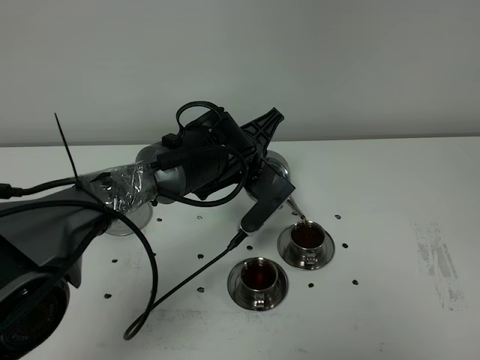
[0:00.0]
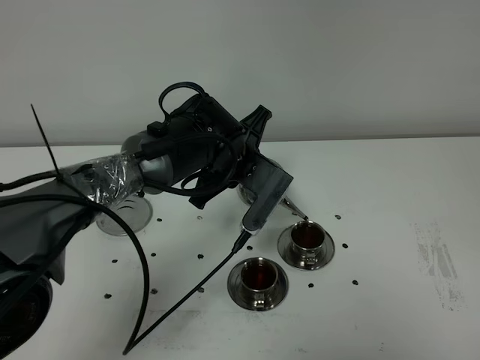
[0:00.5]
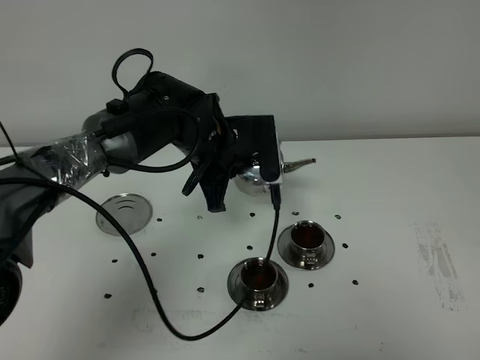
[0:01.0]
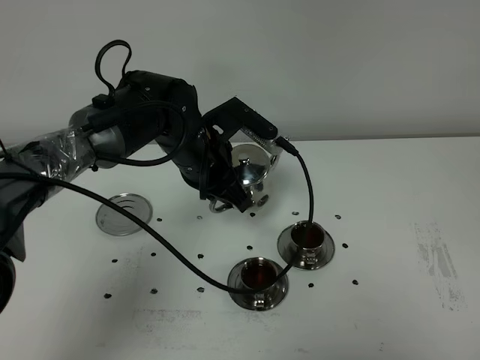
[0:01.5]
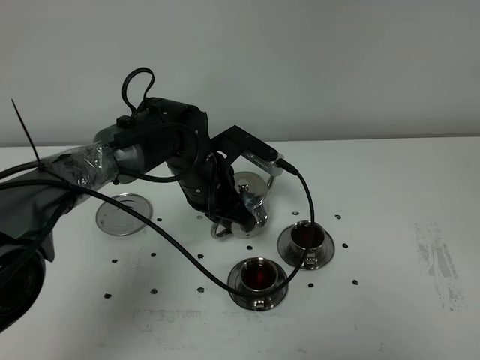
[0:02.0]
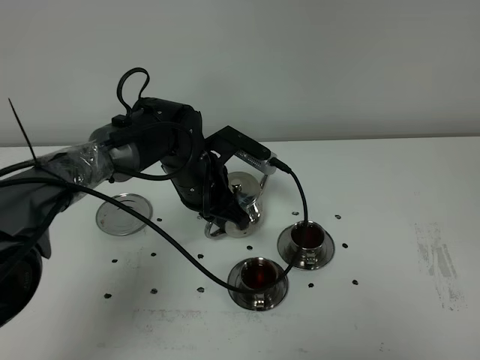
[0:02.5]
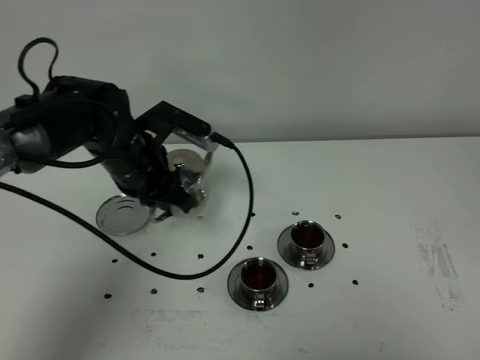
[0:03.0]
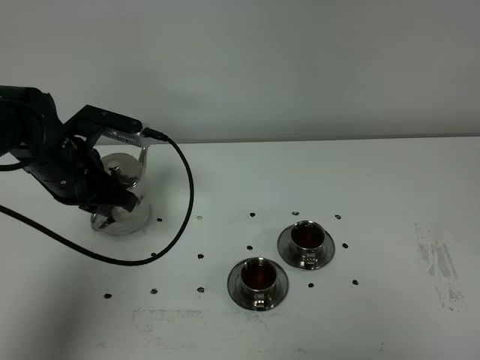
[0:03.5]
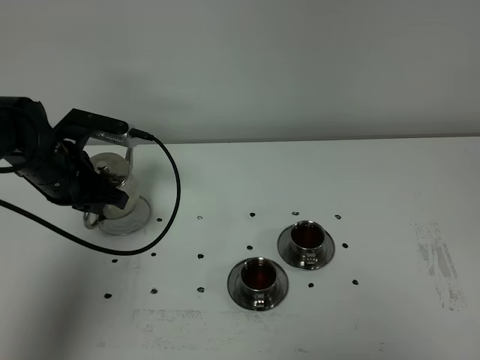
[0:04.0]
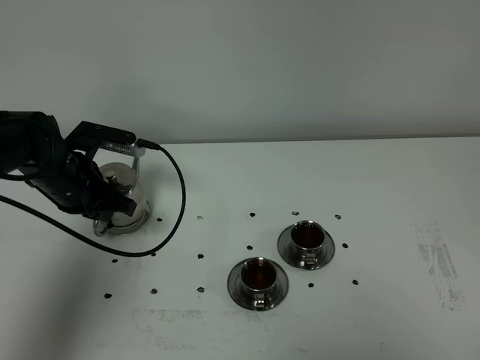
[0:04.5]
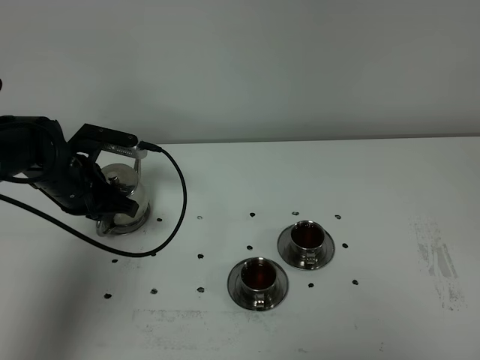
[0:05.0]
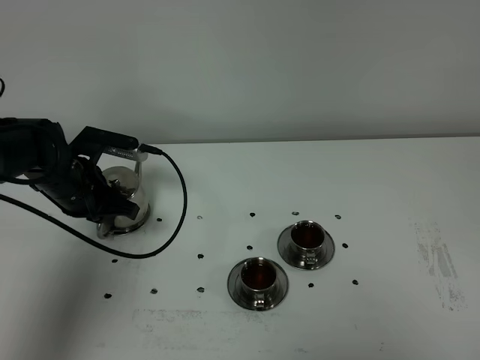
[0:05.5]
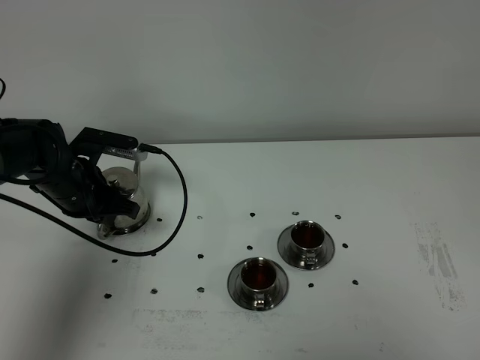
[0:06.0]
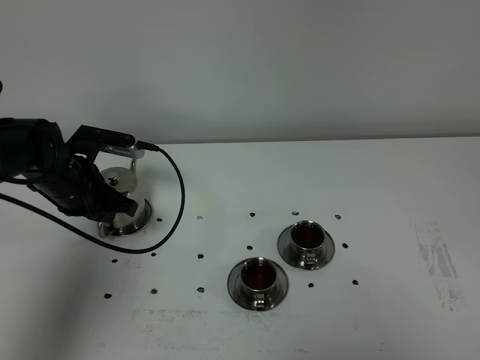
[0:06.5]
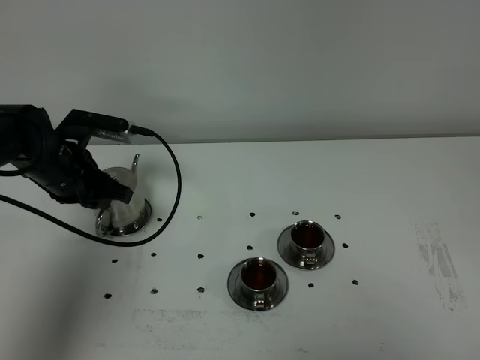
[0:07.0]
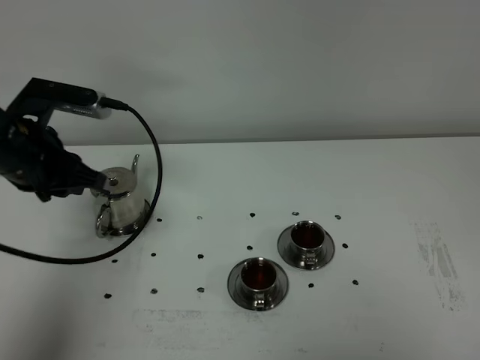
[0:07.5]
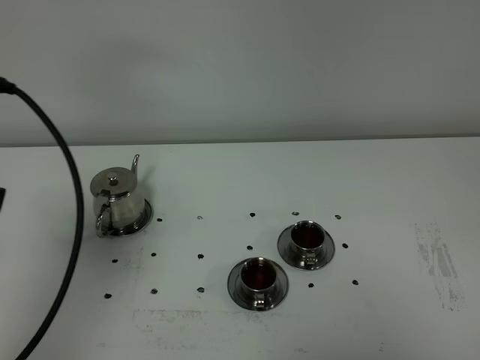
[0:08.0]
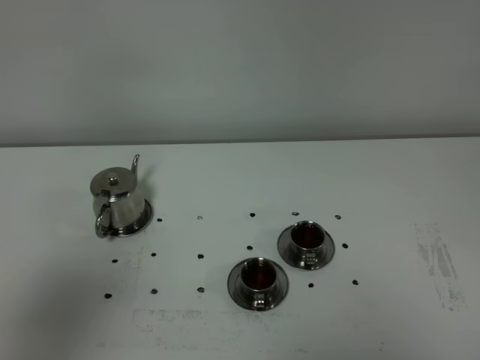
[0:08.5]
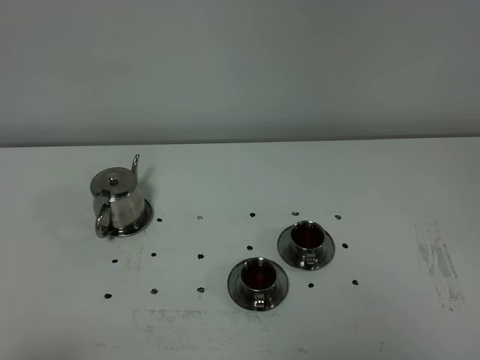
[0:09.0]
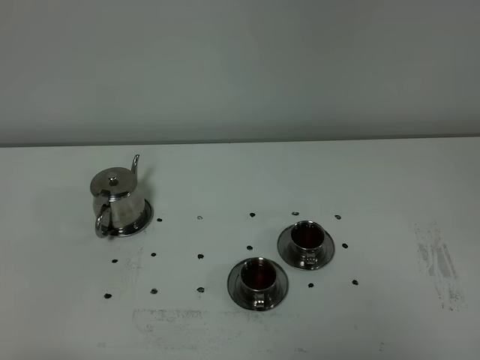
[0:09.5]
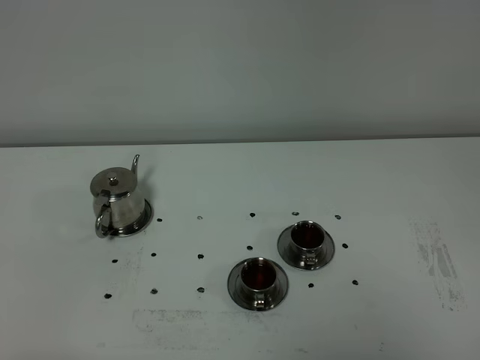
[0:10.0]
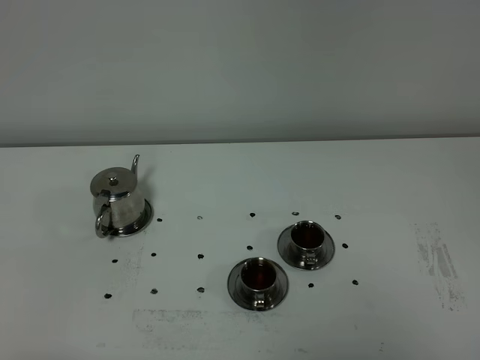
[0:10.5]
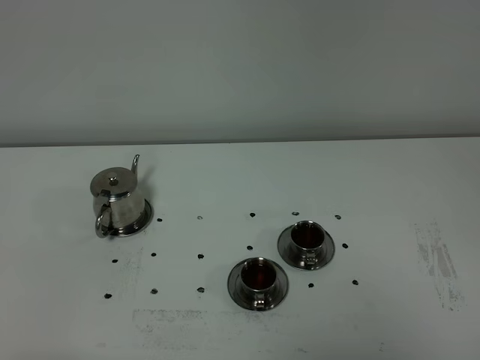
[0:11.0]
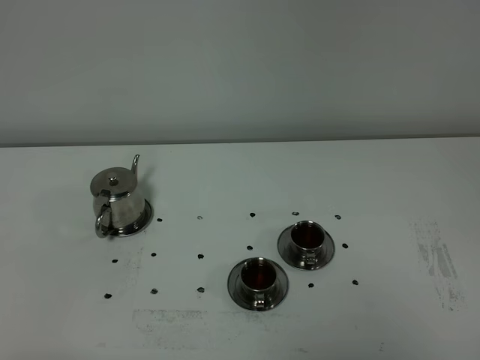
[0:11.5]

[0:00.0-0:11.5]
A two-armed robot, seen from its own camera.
Task of the whole recording: grasp the stainless steel teapot and pour the tea into the two stainless steel teacups one by one, put the stainless steel teapot back in its original place.
0:00.0 to 0:02.0: The left gripper travels to the left by about 5 cm.
0:02.0 to 0:04.0: The left gripper is displaced to the left by about 20 cm.
0:04.0 to 0:06.0: The grippers make only small movements.
0:06.0 to 0:07.5: The left gripper heads upward and backward, covering about 15 cm.
0:07.5 to 0:09.5: The left gripper shifts approximately 35 cm backward.
0:09.5 to 0:11.5: Both grippers stay put.
